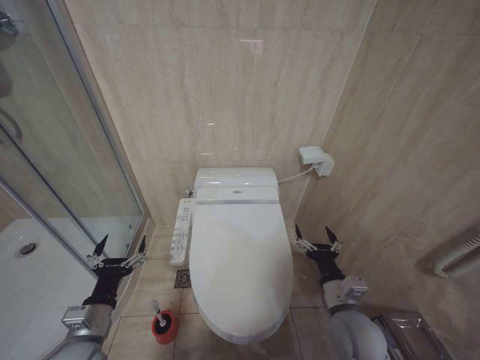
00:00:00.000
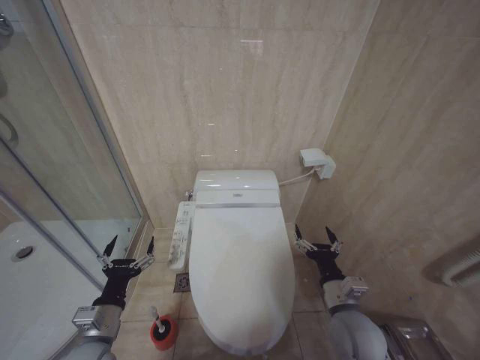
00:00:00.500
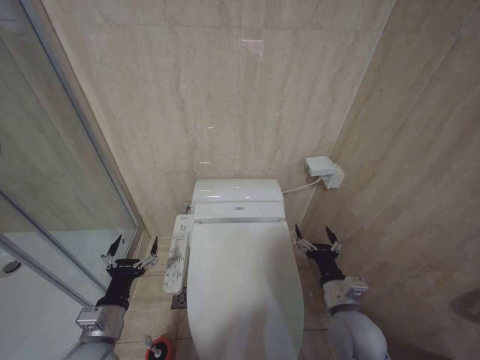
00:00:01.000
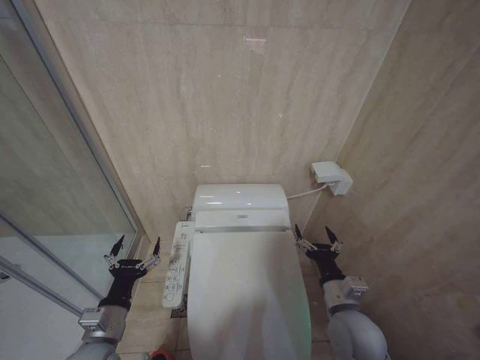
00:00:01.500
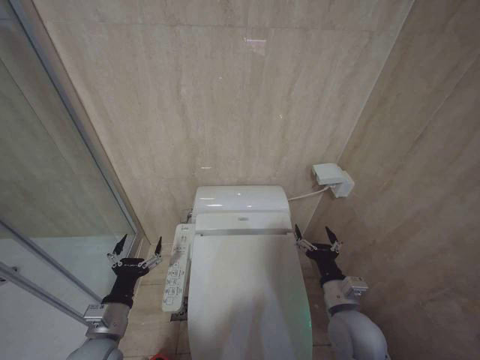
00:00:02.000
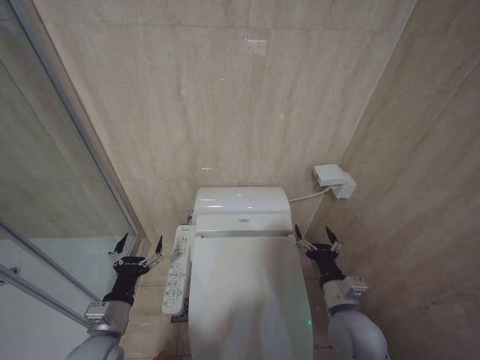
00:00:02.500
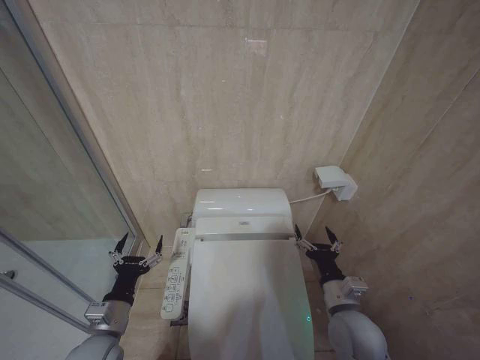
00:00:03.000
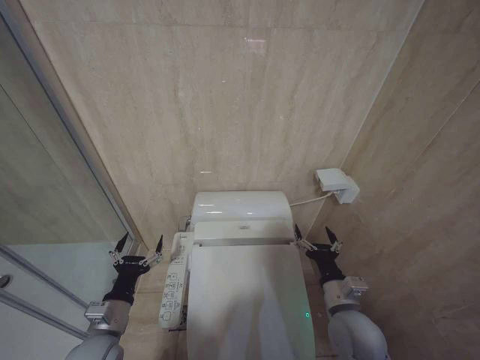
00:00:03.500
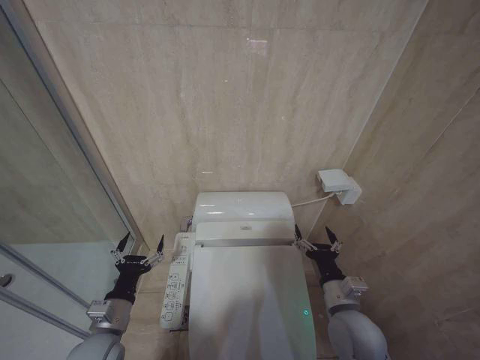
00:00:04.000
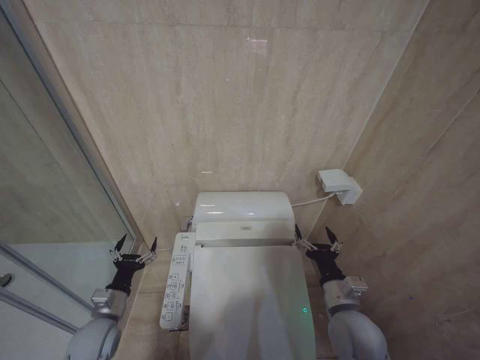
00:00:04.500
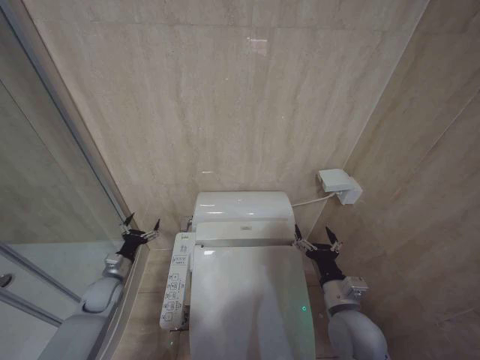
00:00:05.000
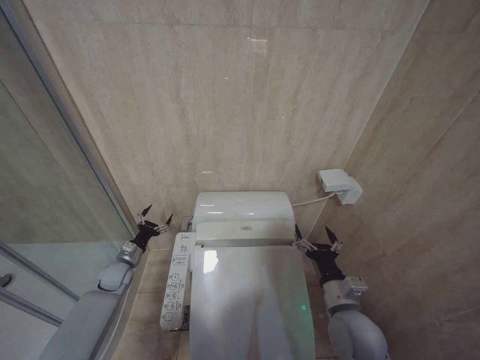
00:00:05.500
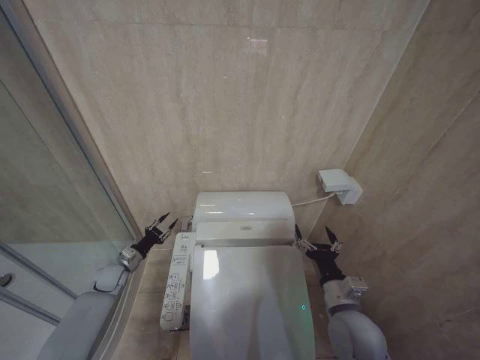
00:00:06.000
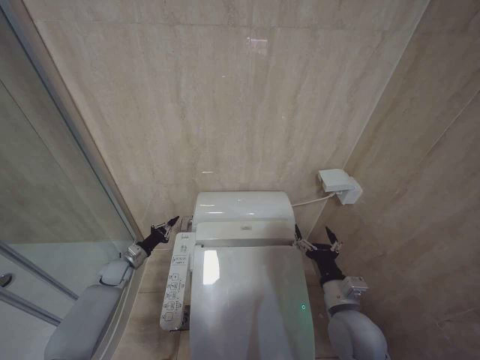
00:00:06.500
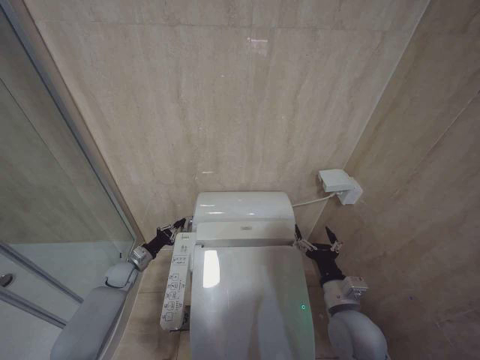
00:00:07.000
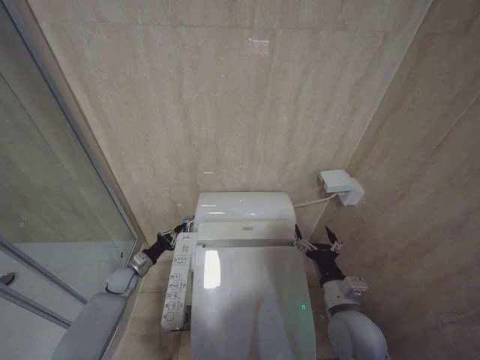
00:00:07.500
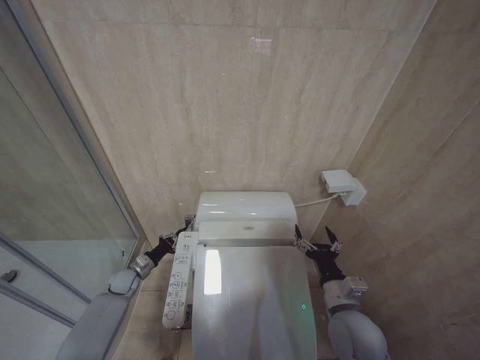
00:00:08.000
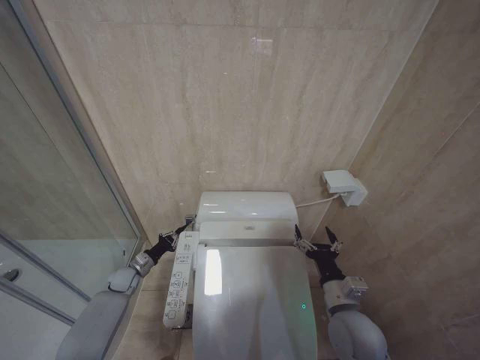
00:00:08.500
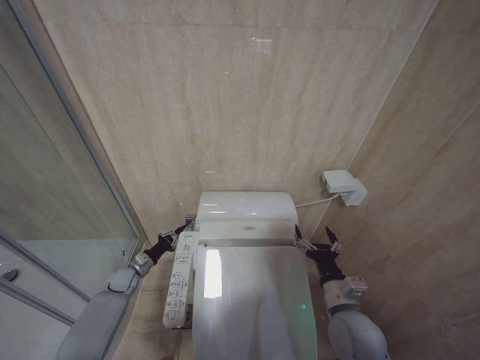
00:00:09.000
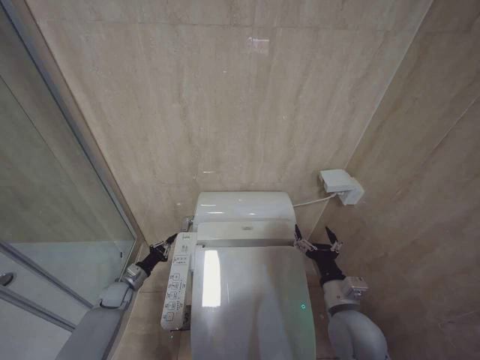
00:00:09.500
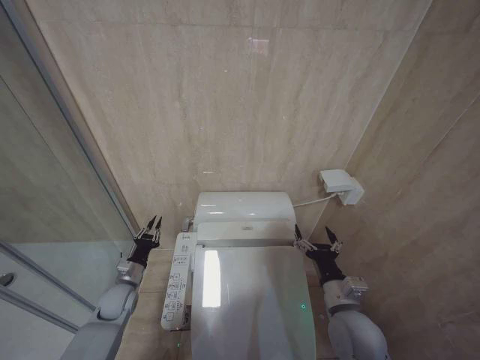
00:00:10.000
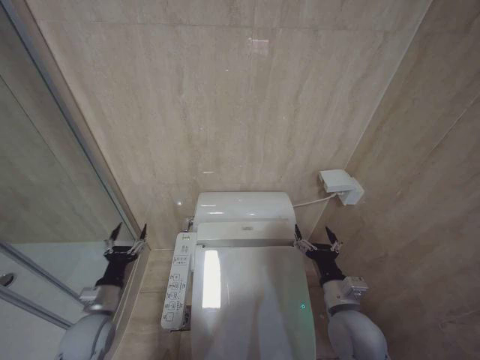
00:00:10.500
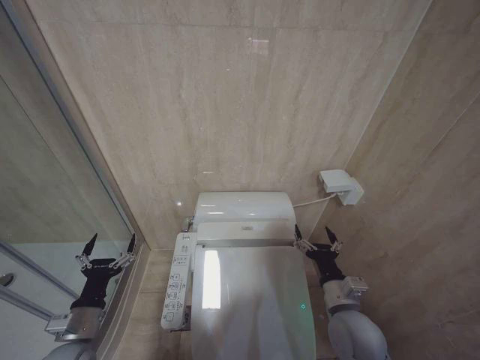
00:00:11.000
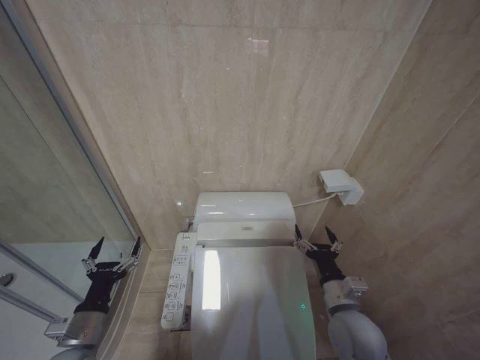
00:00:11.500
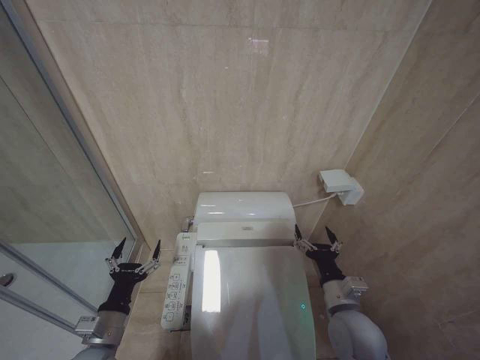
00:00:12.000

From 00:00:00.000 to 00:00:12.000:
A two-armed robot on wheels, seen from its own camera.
Task of the whole recording: Open the toilet lid, clean the toilet bowl with a toilet brush, close the toilet lid, and flush.
From 00:00:00.000 to 00:00:02.000: There are only small adjustments of the grippers.
From 00:00:02.000 to 00:00:04.000: Both grippers stay about where they are.
From 00:00:04.000 to 00:00:06.000: The left gripper goes about 25 cm forward, to the left and downward, and closes its fingers.
From 00:00:06.000 to 00:00:08.000: The left gripper changes place by roughly 5 cm, and closes its fingers.
From 00:00:08.000 to 00:00:10.000: The left gripper goes approximately 5 cm backward.
From 00:00:10.000 to 00:00:12.000: The left gripper heads backward and upward, covering approximately 20 cm, and opens up.

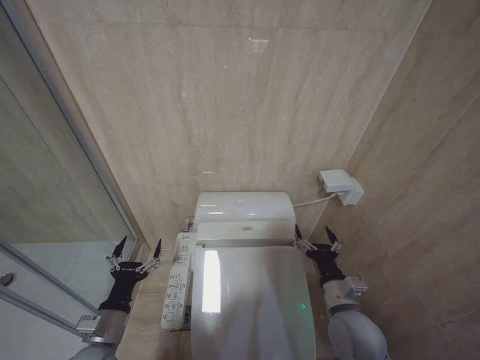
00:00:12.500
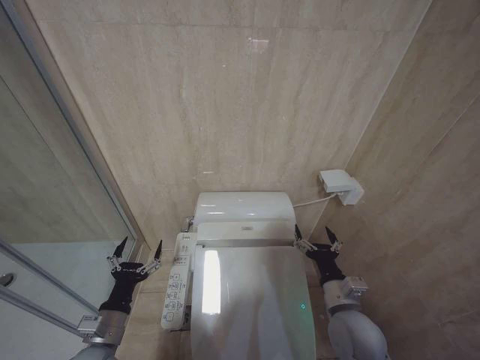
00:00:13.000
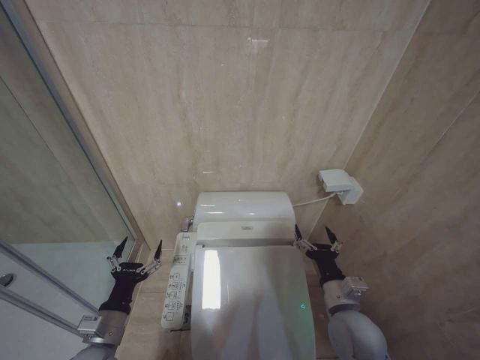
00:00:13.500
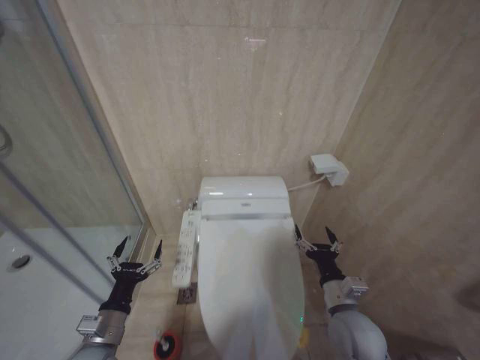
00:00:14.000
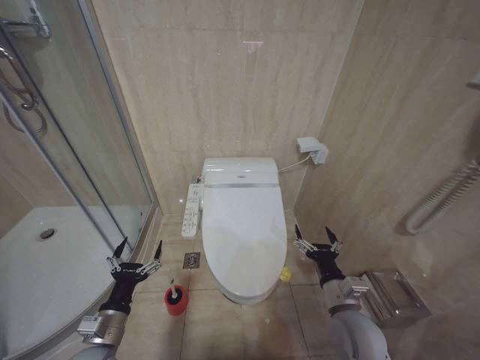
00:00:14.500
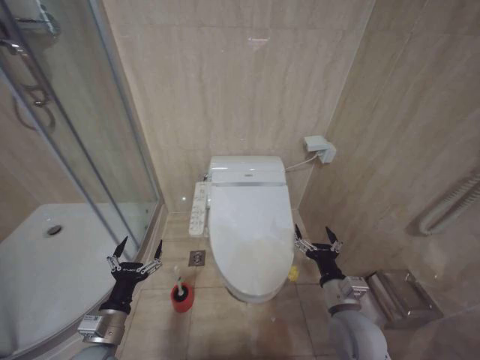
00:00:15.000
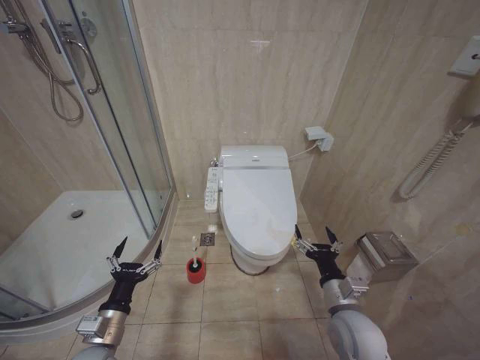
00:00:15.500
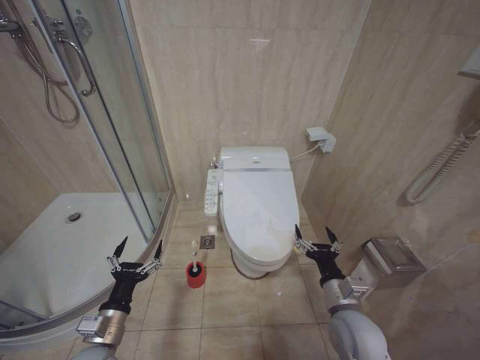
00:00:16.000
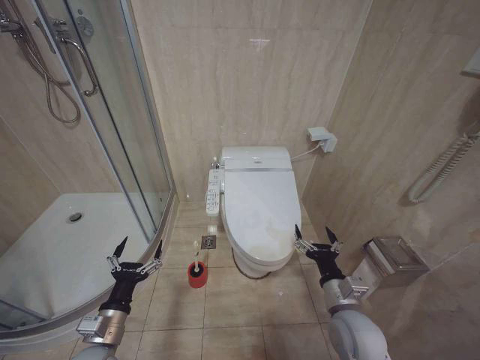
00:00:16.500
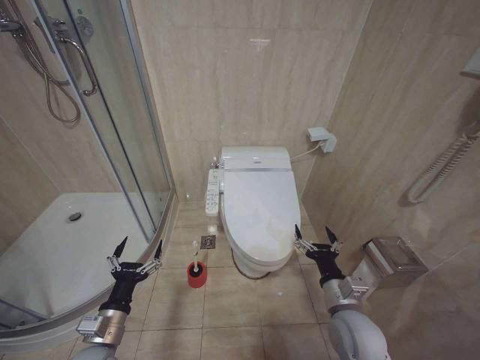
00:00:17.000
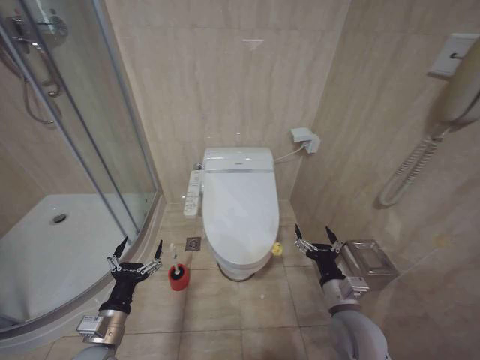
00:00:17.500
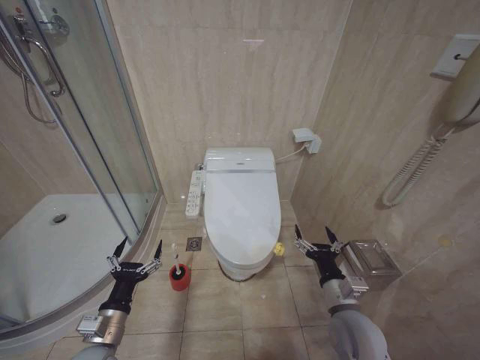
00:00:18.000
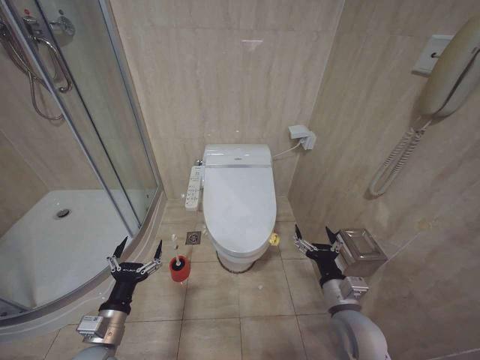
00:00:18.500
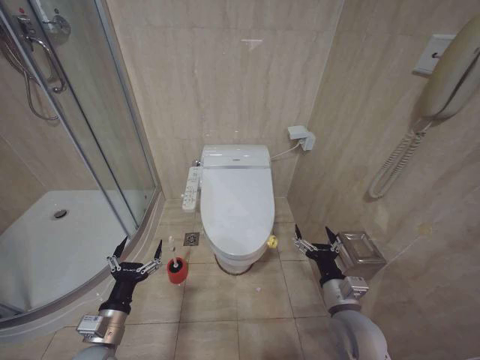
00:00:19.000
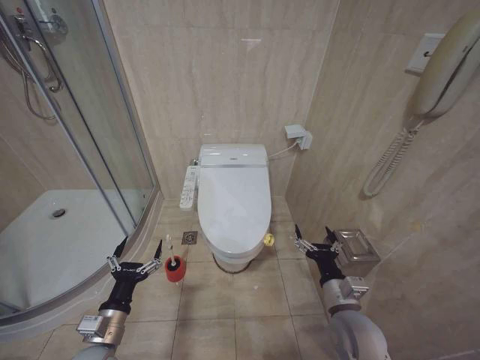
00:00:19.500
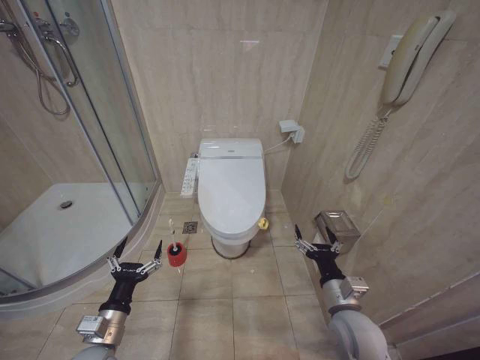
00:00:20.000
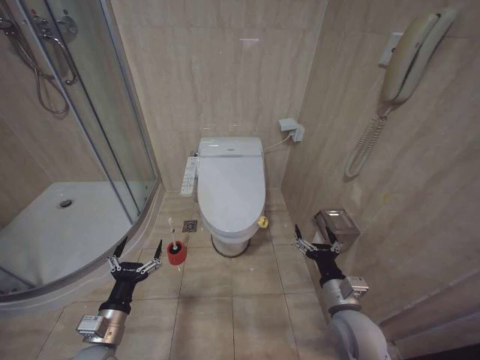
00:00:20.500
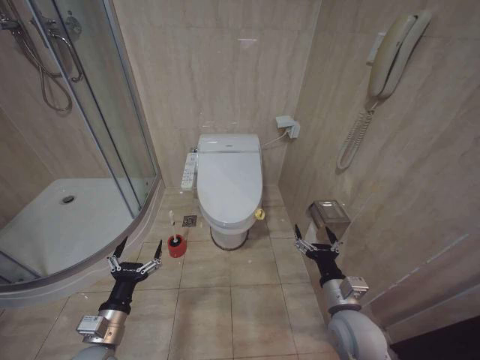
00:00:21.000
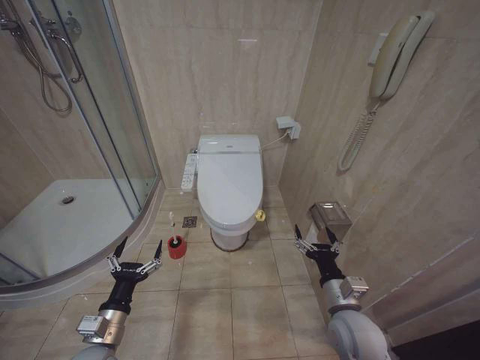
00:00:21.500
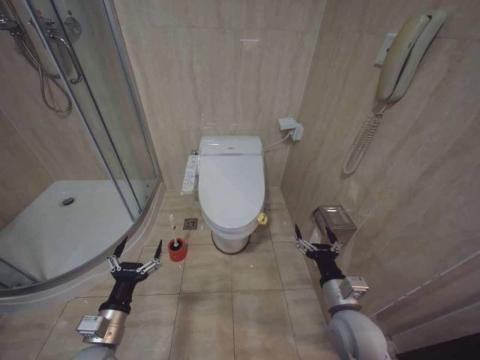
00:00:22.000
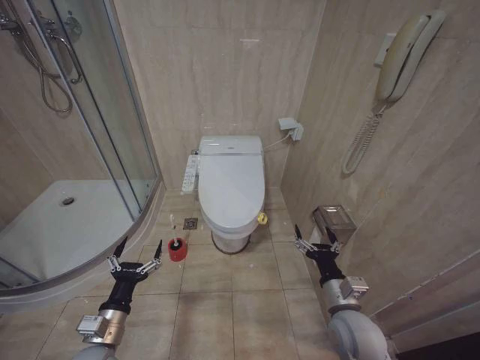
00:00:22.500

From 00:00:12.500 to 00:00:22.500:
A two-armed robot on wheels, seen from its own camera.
Task of the whole recording: Open the toilet lid, clean the toilet bowl with a toilet brush, close the toilet lid, and flush.
From 00:00:16.500 to 00:00:22.500: Both grippers stay about where they are.
